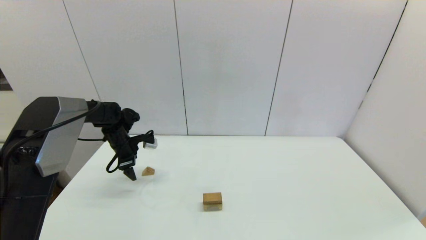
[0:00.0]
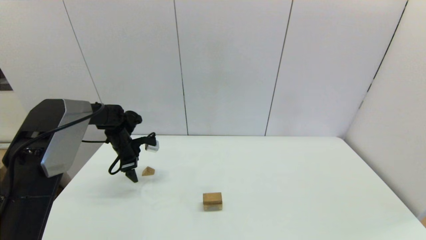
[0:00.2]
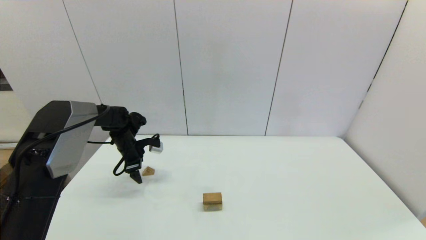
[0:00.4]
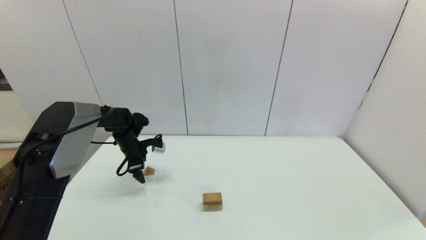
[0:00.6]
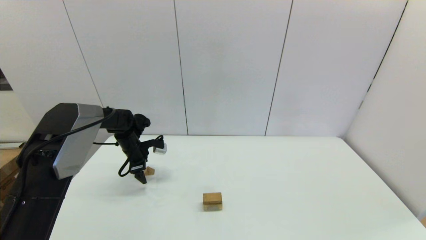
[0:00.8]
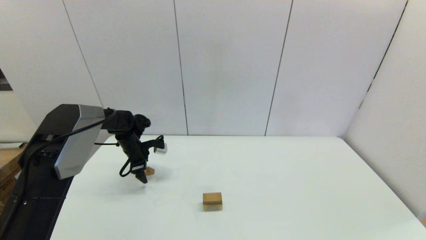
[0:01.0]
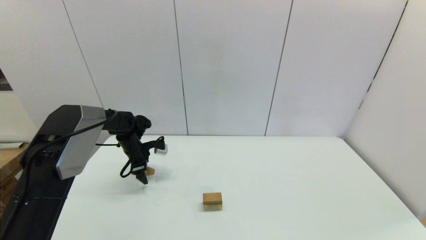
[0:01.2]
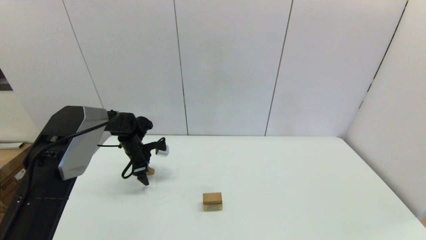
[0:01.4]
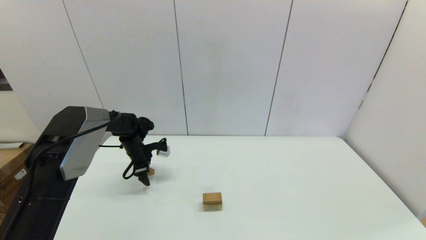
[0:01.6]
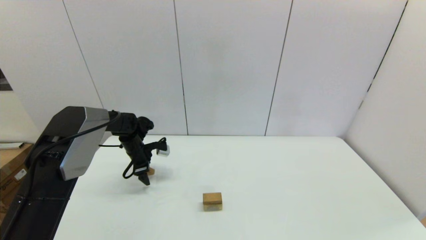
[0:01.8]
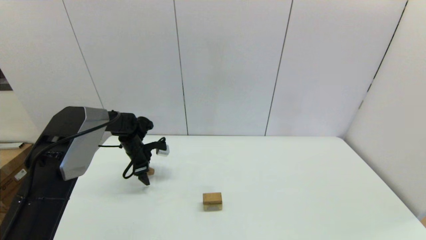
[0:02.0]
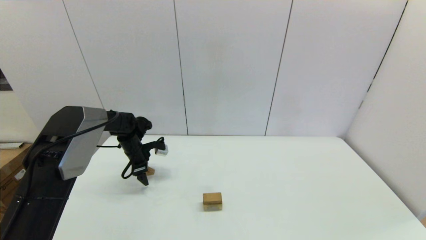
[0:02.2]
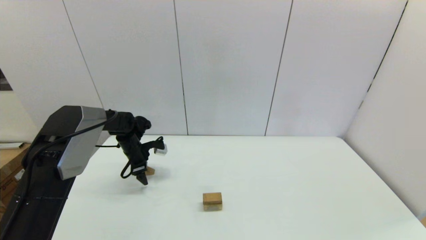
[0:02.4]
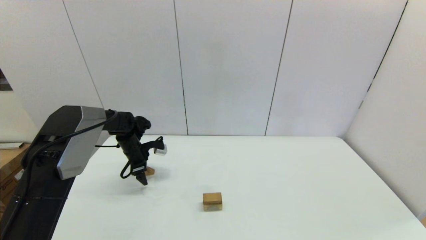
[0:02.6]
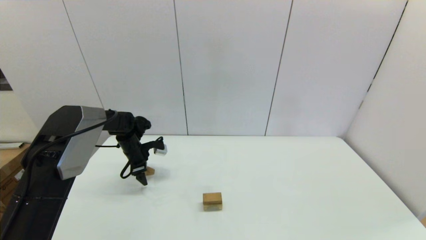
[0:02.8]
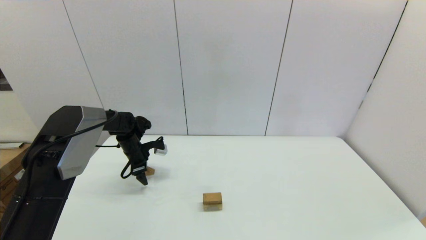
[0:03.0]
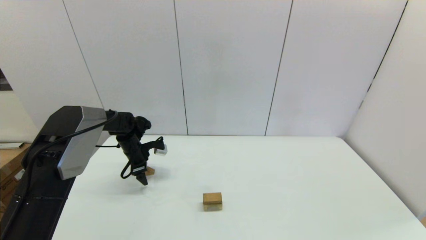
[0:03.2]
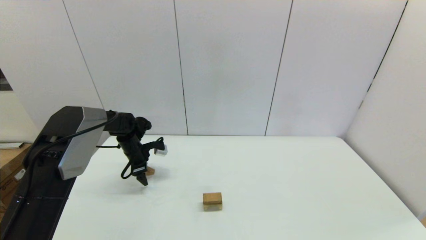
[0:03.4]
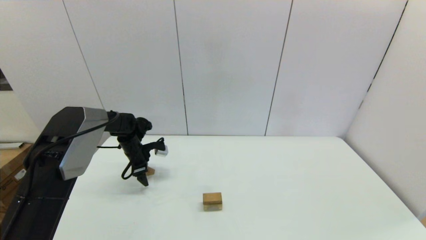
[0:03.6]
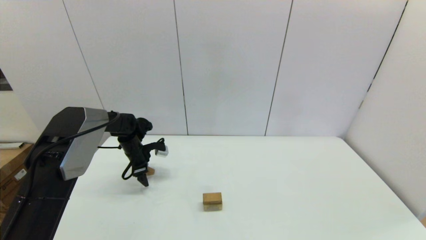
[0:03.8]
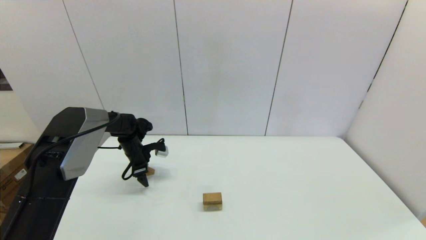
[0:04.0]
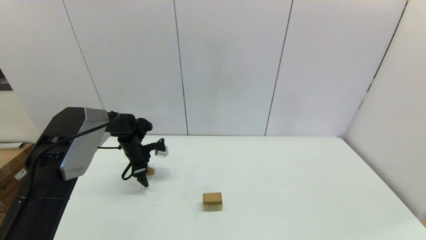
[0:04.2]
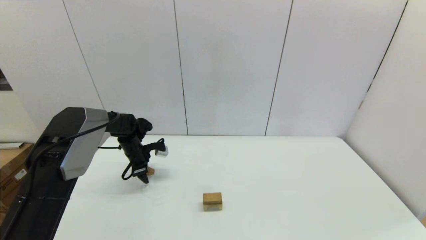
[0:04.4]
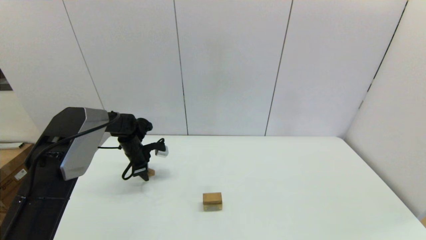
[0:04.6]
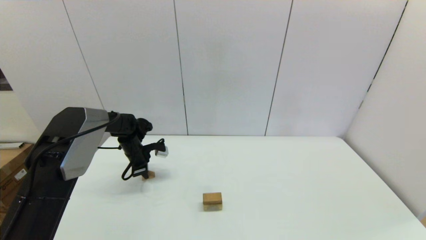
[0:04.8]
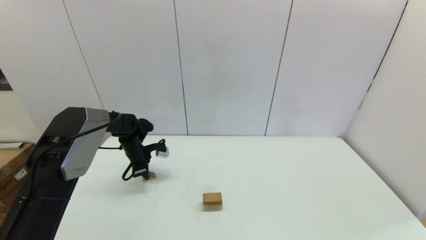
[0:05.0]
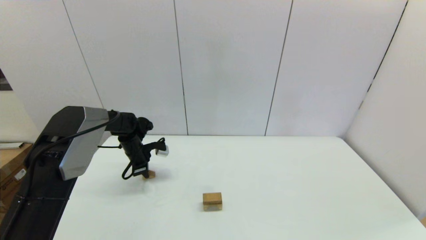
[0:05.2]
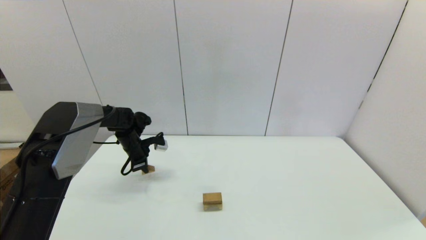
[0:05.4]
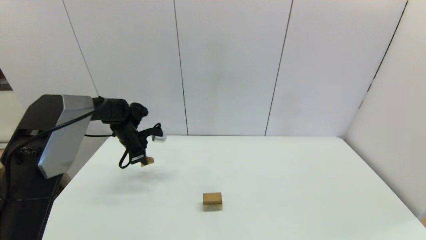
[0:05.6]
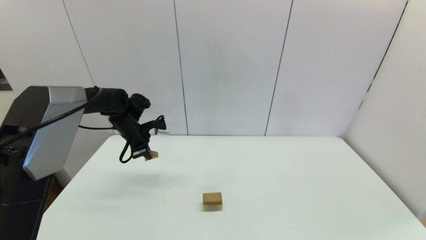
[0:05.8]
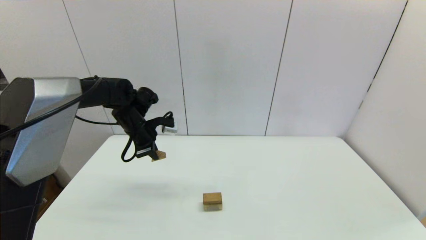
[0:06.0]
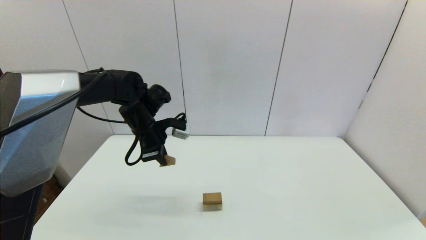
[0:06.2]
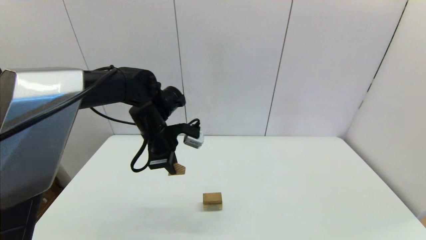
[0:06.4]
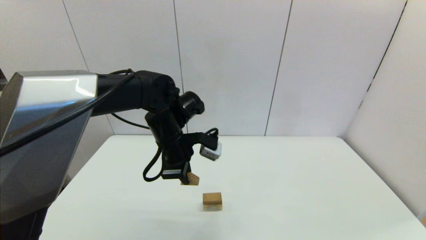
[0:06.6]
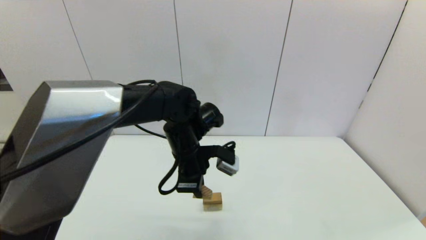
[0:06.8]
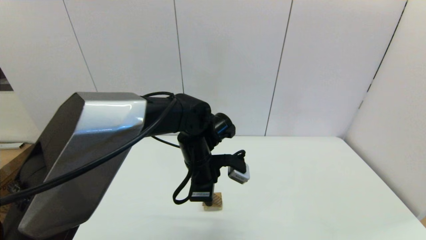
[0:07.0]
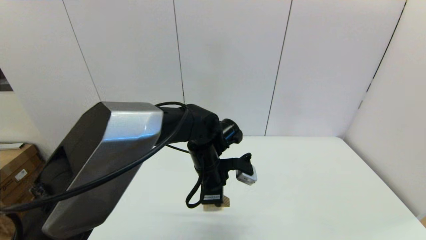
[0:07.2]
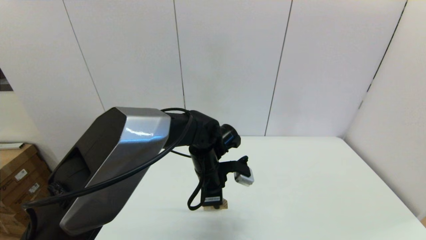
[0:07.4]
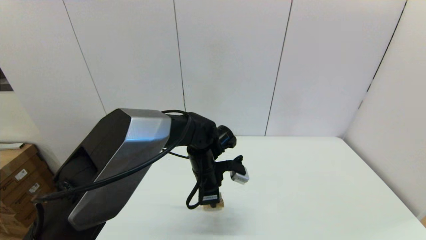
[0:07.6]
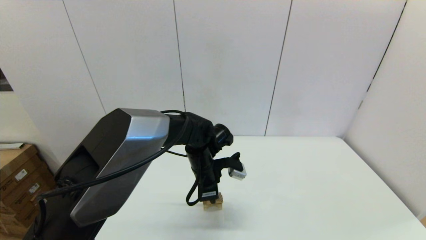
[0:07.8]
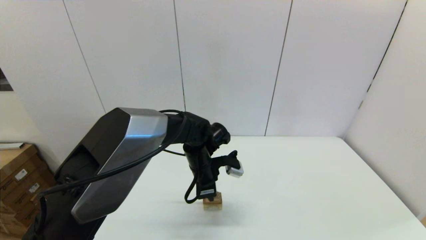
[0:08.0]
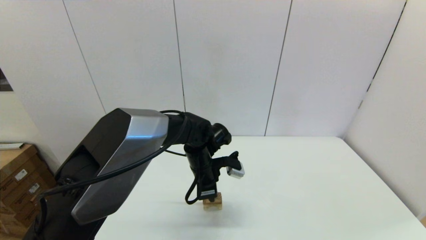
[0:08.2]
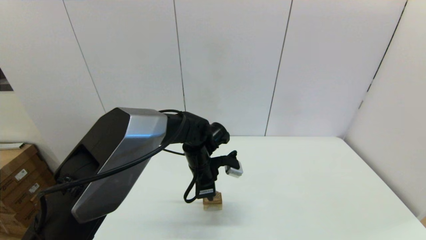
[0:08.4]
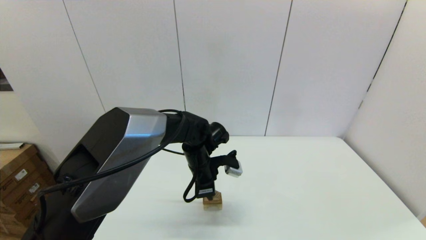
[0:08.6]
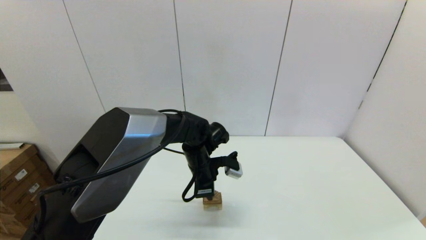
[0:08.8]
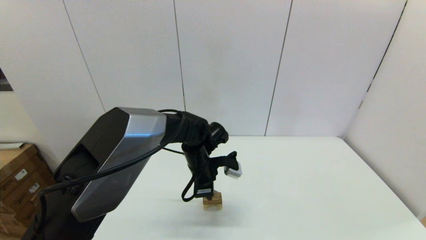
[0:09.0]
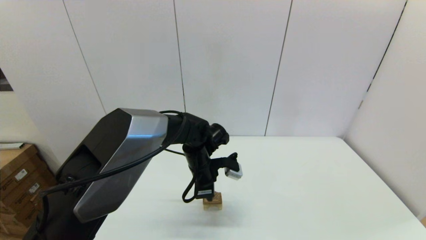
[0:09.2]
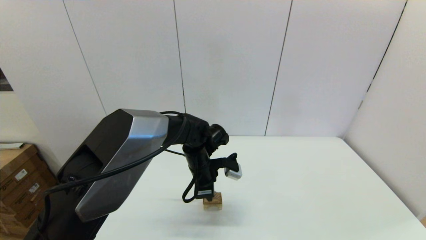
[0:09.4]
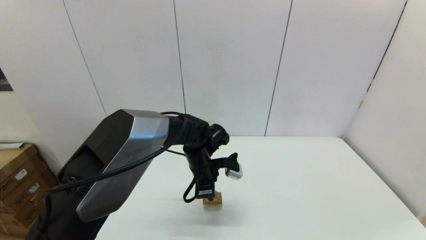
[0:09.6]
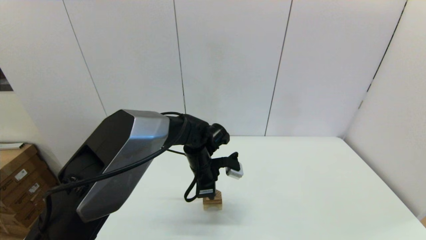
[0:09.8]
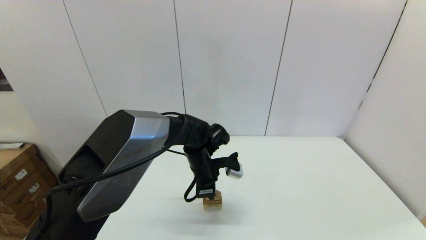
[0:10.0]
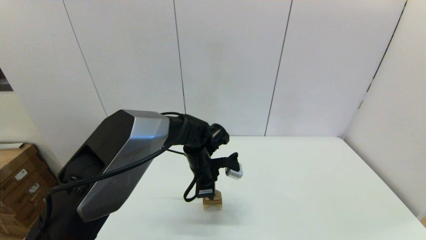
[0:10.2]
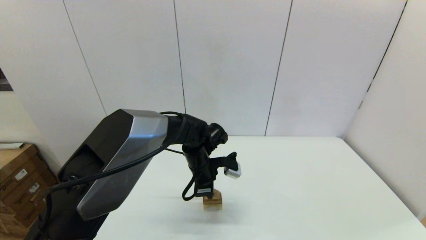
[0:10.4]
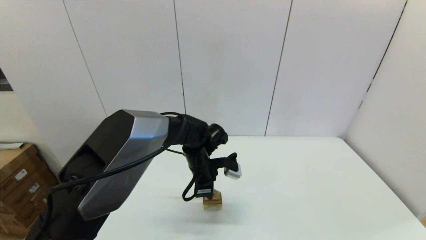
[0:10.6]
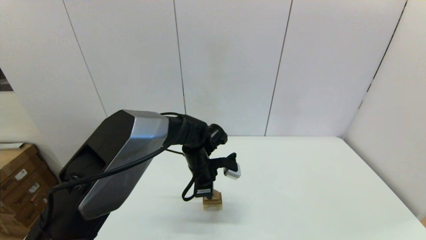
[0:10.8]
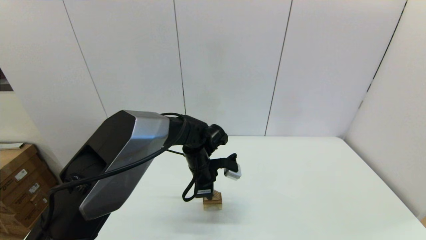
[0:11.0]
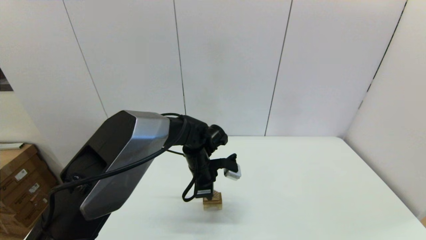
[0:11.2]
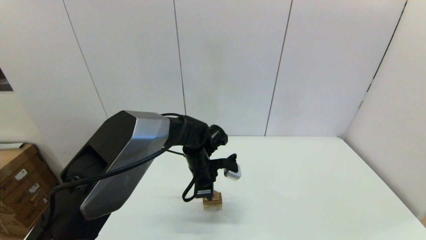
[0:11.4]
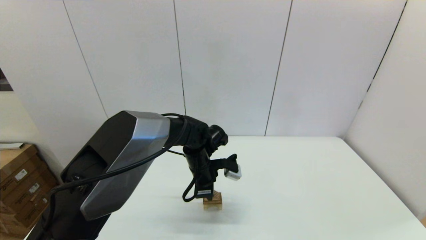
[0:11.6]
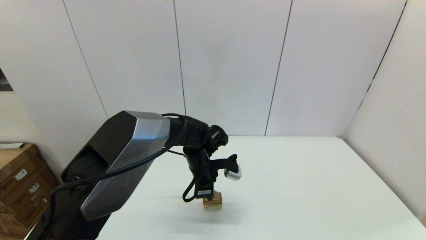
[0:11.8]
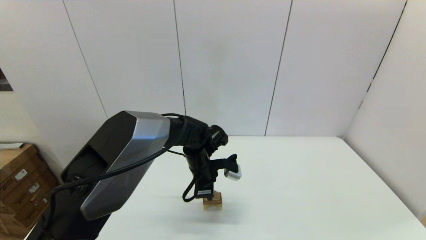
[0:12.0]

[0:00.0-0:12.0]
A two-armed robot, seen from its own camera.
Task of the whole recording: place the arched building blocks in the center of the table, set up the rectangular building blocks, and then set up the triangular building blocks.
Step, 0:00.0 to 0:04.6: Grasp the triangle-shaped block with the left gripper.
0:00.0 to 0:01.6: The left gripper changes place by about 5 cm.
0:01.6 to 0:03.0: The two grippers keep their place.
0:03.0 to 0:04.4: The left gripper closes.
0:04.4 to 0:06.0: The left gripper is displaced upward, to the right and backward by approximately 15 cm, and closes its fingers.
0:06.0 to 0:07.6: The left gripper heads to the right and backward, covering about 20 cm.
0:07.6 to 0:09.0: There are only small adjustments of the grippers.
0:09.0 to 0:10.4: Neither gripper changes place.
0:10.4 to 0:12.0: Both grippers stay about where they are.

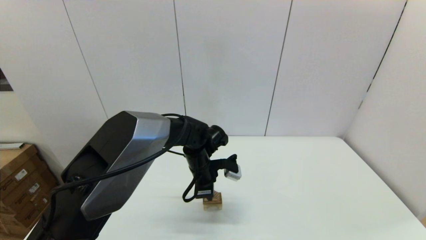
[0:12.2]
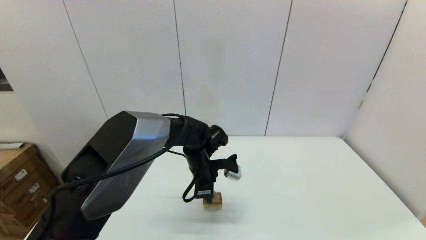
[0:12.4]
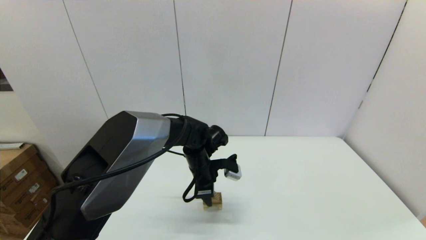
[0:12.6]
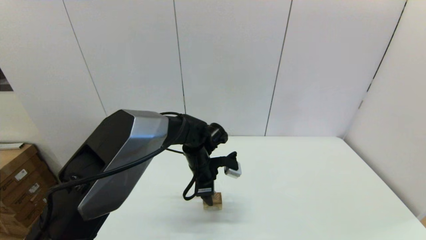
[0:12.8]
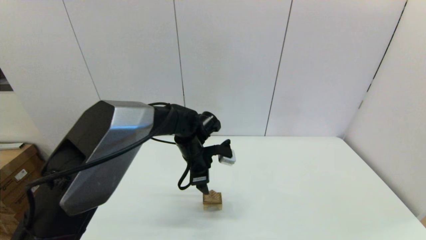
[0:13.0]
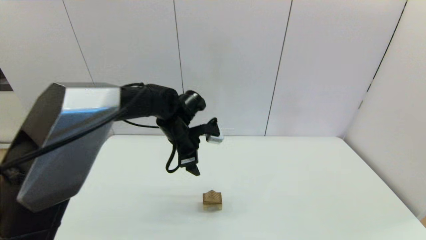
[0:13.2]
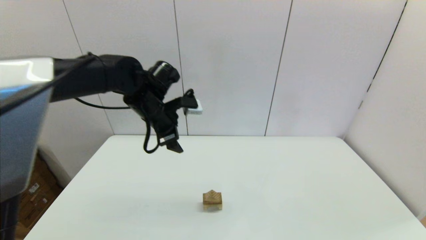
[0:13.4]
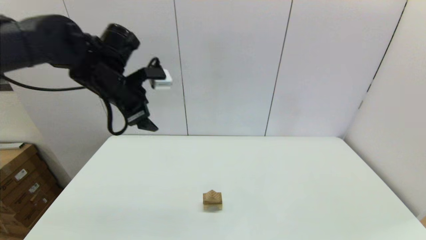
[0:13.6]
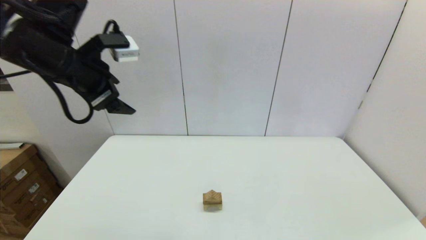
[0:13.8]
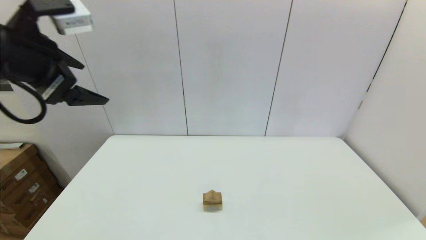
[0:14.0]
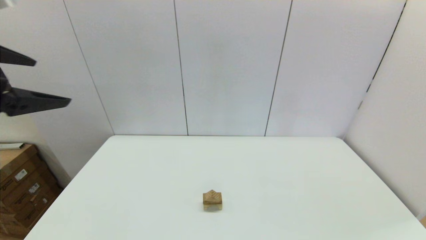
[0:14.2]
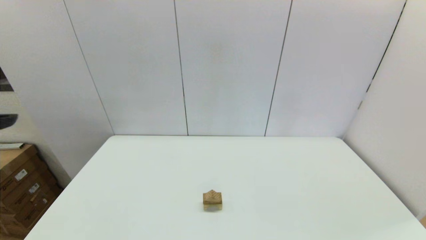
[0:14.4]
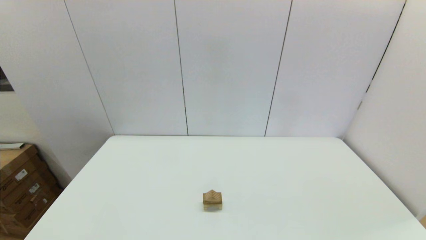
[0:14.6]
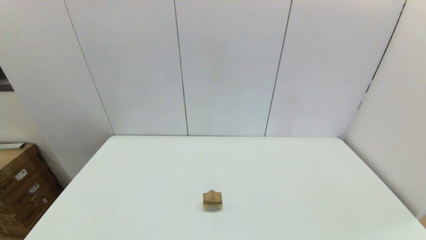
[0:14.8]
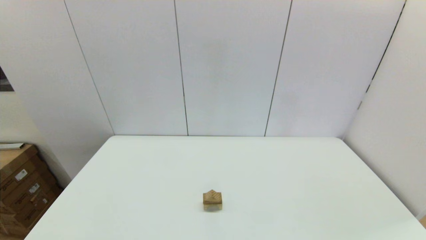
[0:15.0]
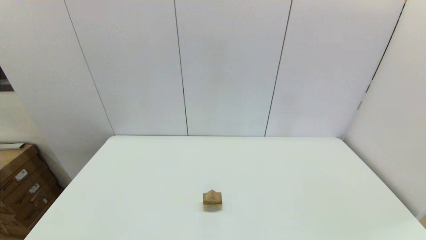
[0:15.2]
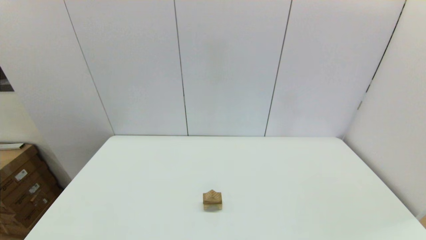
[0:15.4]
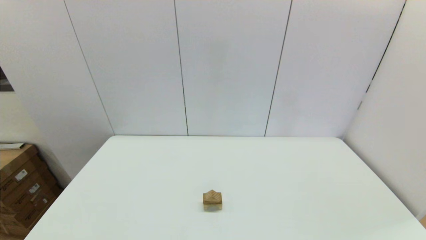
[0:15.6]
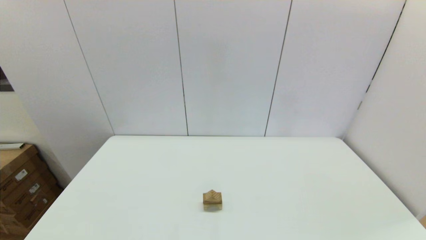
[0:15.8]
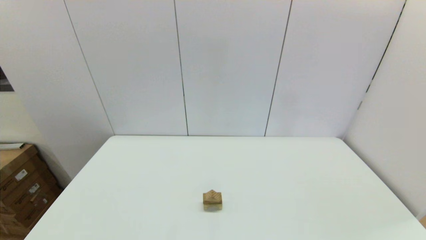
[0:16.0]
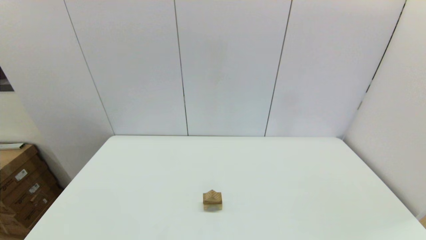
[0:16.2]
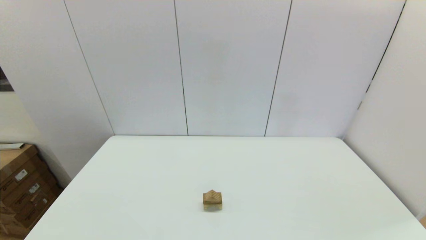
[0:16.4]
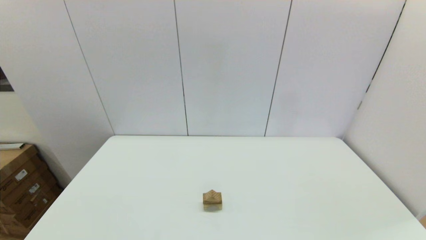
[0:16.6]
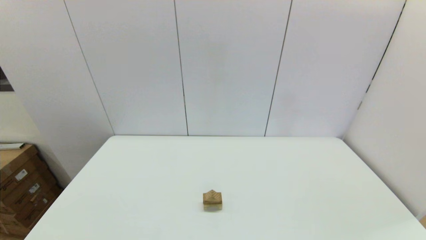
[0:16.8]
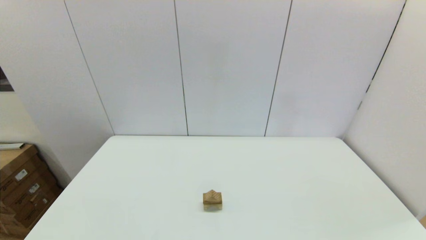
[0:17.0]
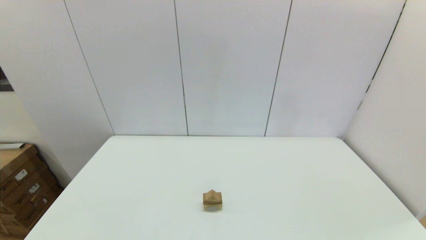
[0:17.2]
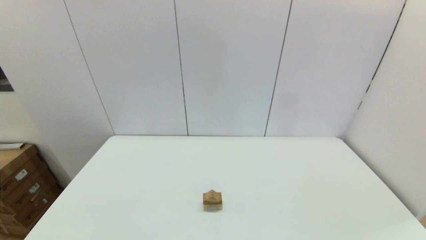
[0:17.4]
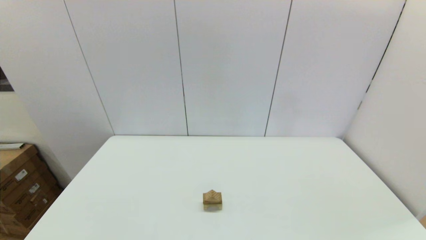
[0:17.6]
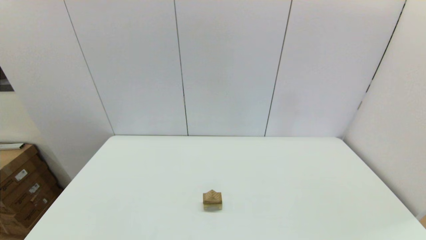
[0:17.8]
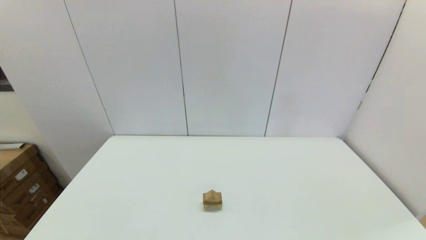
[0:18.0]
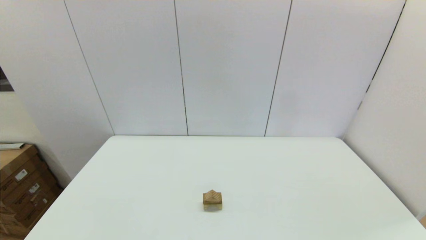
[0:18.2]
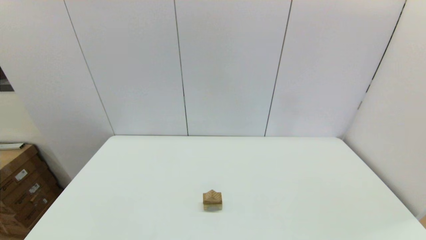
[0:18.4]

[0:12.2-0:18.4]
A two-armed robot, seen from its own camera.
Task of the whole recording: place the arched building blocks in the center of the table, set up the rectangular building blocks, and then set up the triangular building blocks.
0:12.2 to 0:13.8: The left gripper moves upward and to the left, about 35 cm, and opens its fingers.
0:13.8 to 0:15.4: The left gripper shifts some 35 cm backward and downward.
